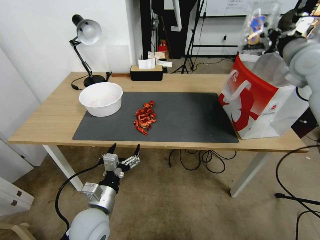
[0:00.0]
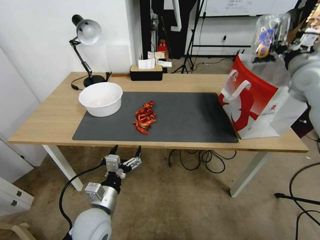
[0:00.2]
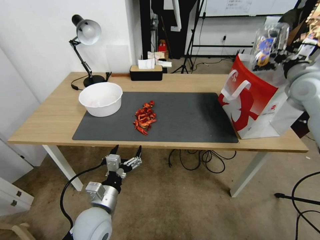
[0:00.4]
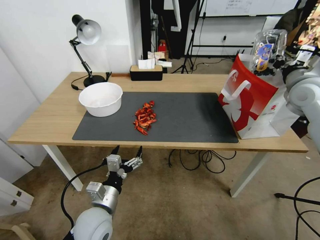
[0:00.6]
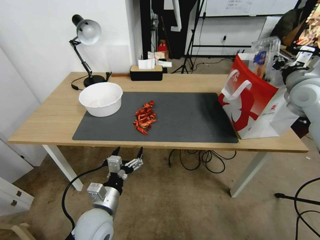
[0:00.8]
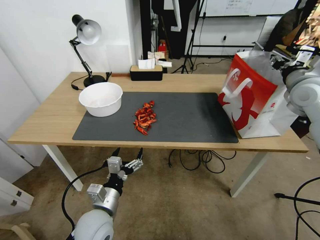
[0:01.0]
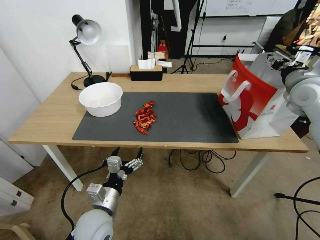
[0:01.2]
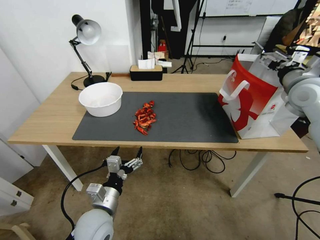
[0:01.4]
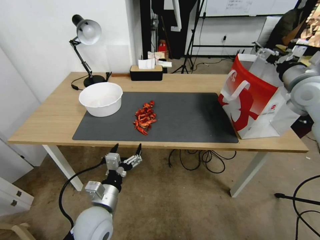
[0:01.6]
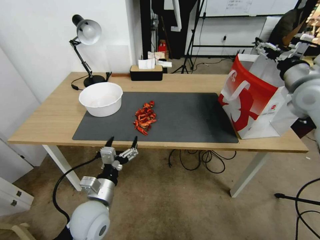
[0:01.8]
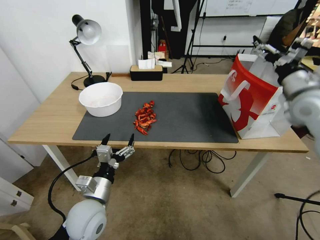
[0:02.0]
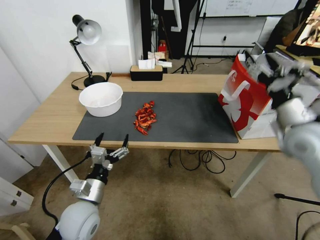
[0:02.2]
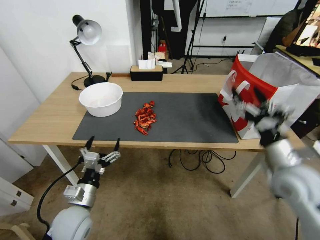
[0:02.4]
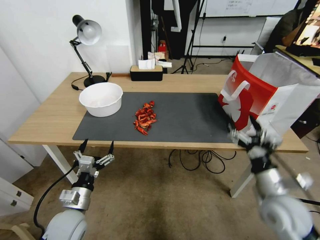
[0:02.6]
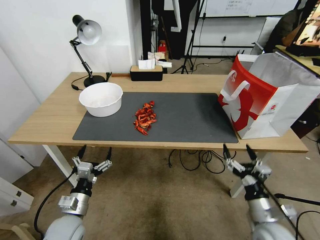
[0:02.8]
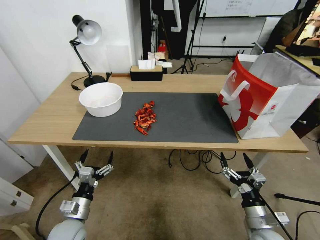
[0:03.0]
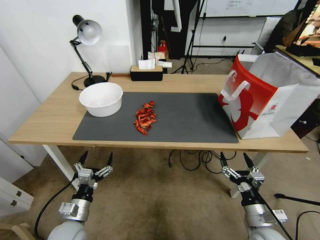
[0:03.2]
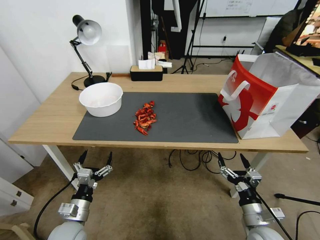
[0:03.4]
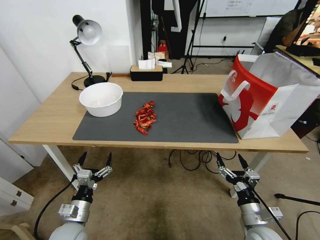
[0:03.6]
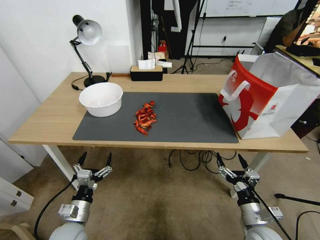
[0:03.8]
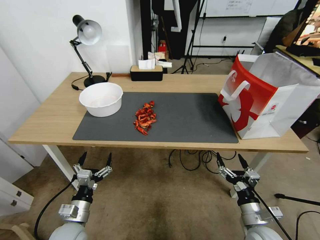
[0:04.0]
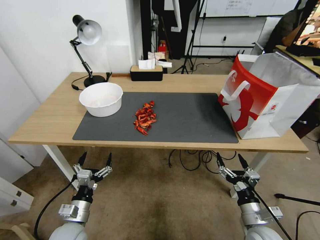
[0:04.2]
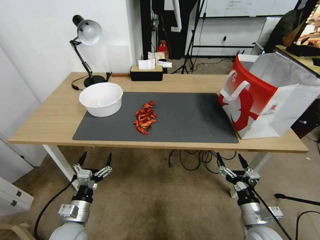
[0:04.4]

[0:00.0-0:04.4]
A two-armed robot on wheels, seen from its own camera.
0:00.0 to 0:01.4: The right gripper shifts roughly 5 cm downward, and opens up.
0:01.4 to 0:03.0: The left gripper heads to the left and downward, covering roughly 10 cm; the right gripper travels downward and backward by approximately 40 cm.
0:03.0 to 0:04.4: Both grippers stay put.

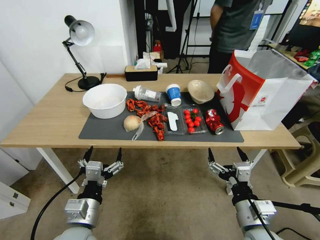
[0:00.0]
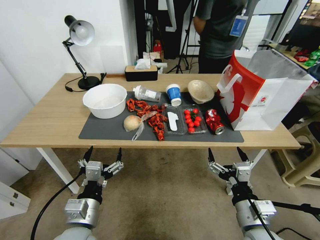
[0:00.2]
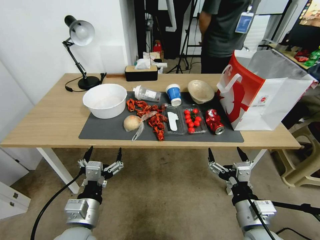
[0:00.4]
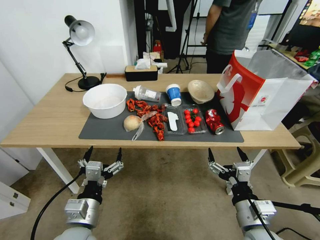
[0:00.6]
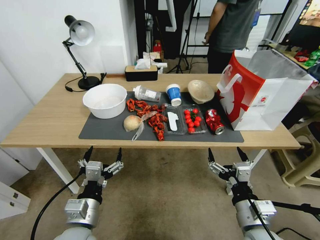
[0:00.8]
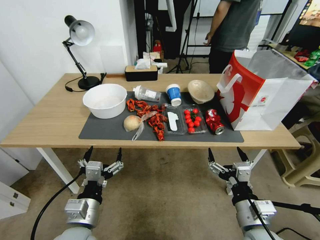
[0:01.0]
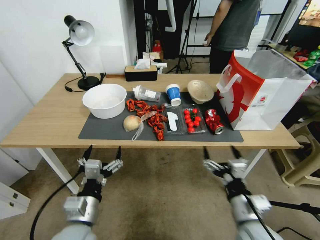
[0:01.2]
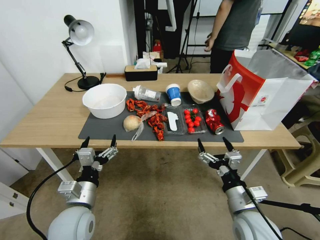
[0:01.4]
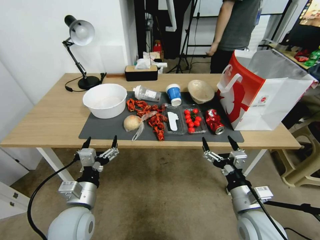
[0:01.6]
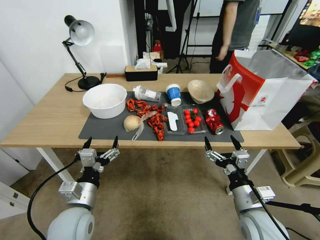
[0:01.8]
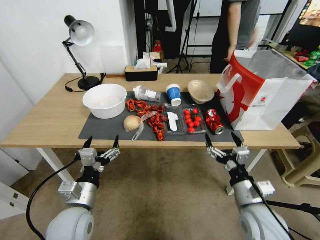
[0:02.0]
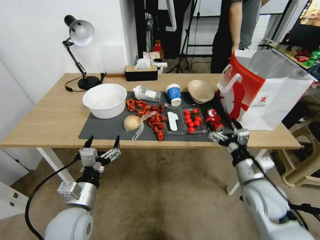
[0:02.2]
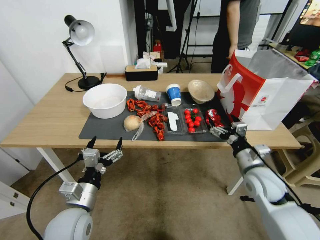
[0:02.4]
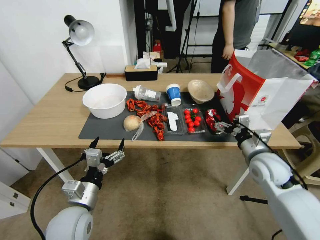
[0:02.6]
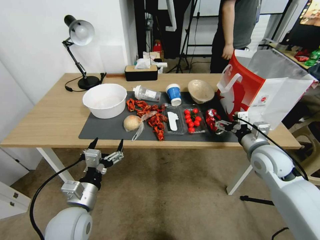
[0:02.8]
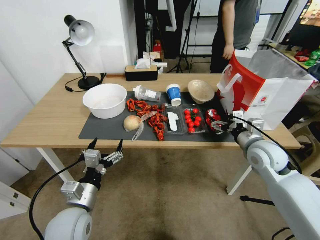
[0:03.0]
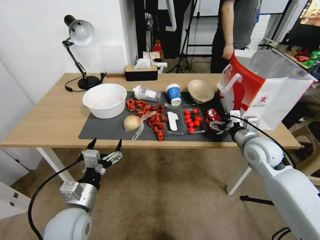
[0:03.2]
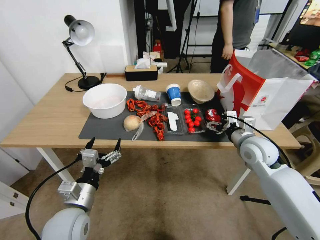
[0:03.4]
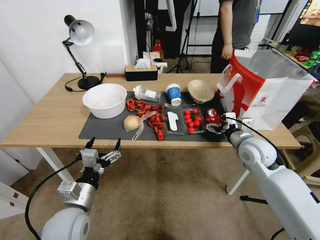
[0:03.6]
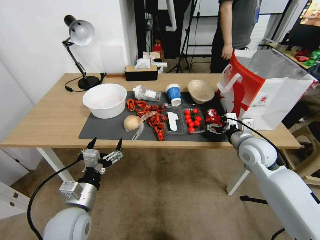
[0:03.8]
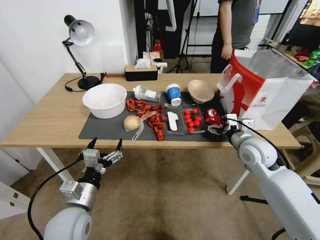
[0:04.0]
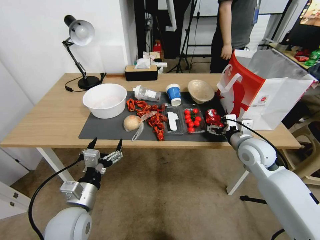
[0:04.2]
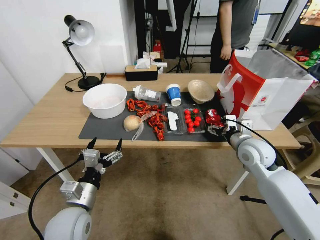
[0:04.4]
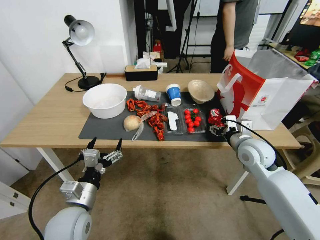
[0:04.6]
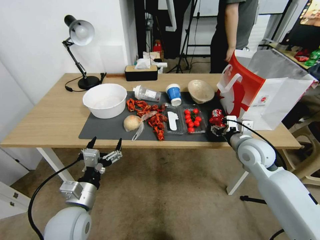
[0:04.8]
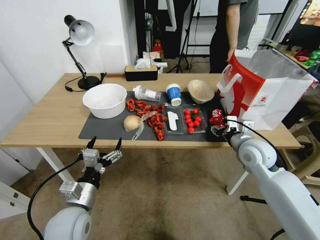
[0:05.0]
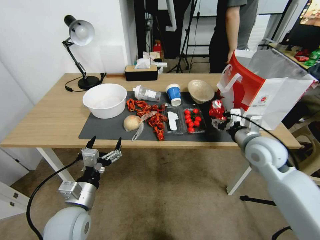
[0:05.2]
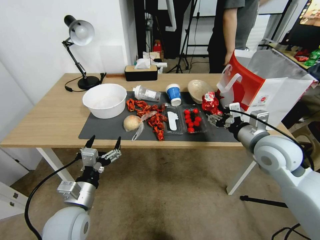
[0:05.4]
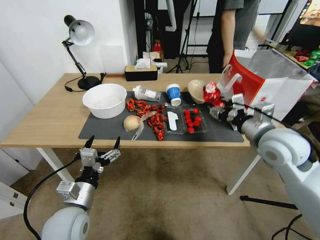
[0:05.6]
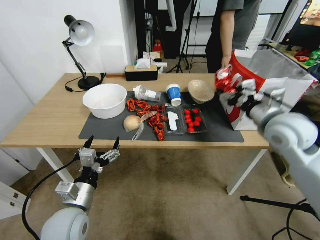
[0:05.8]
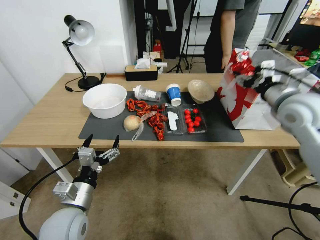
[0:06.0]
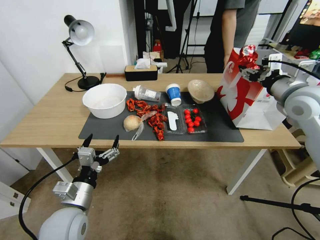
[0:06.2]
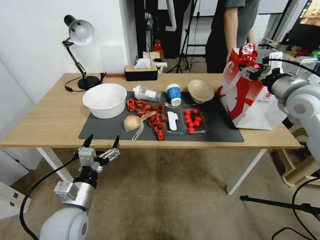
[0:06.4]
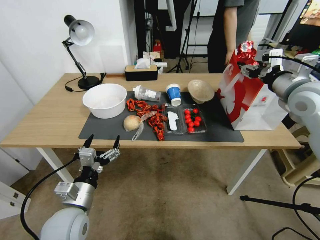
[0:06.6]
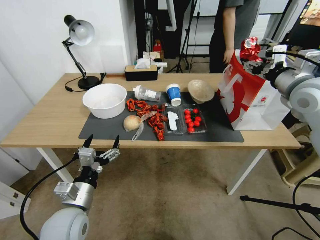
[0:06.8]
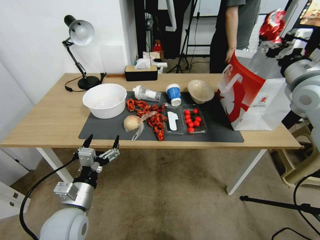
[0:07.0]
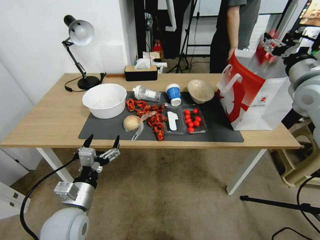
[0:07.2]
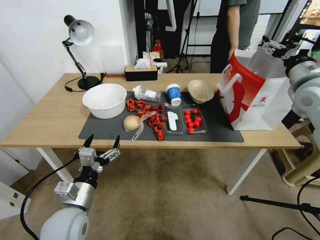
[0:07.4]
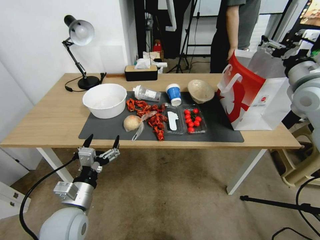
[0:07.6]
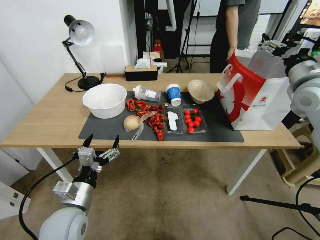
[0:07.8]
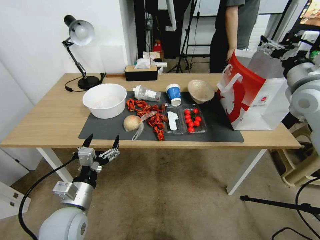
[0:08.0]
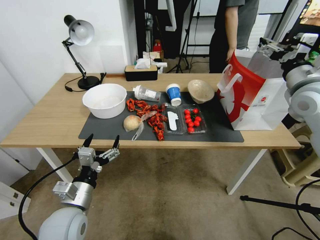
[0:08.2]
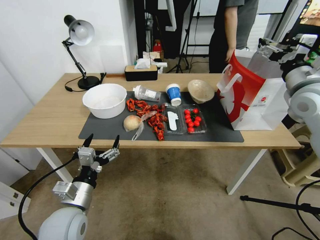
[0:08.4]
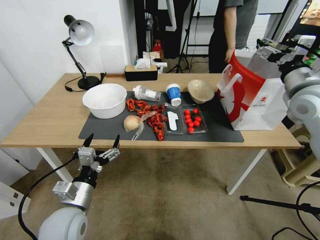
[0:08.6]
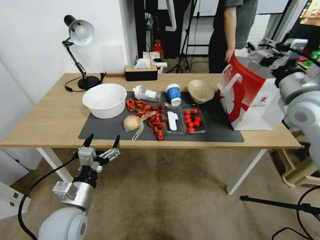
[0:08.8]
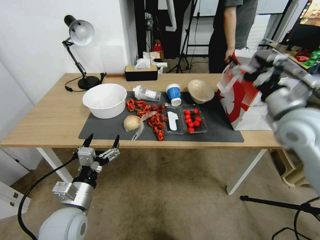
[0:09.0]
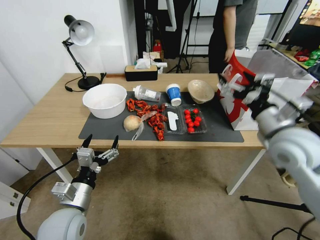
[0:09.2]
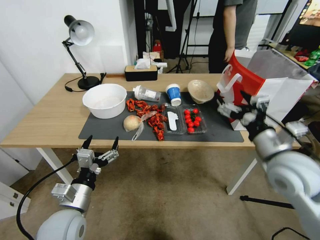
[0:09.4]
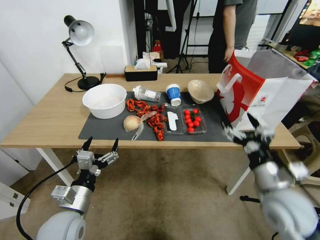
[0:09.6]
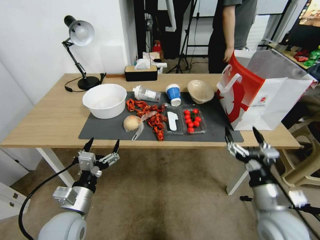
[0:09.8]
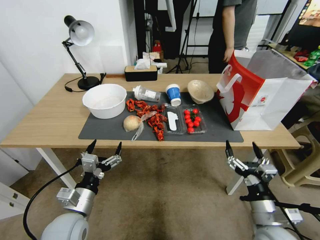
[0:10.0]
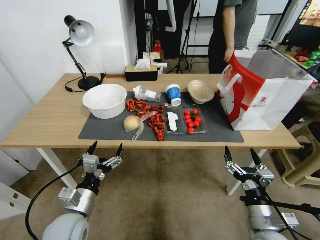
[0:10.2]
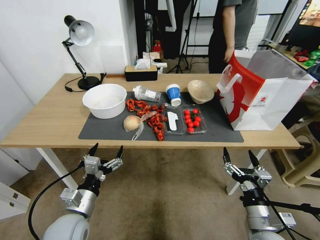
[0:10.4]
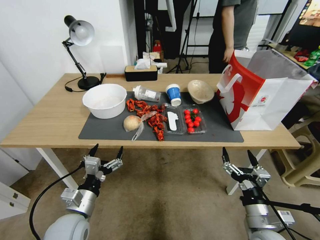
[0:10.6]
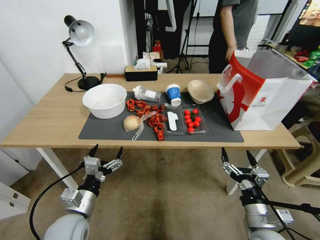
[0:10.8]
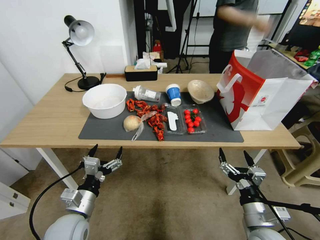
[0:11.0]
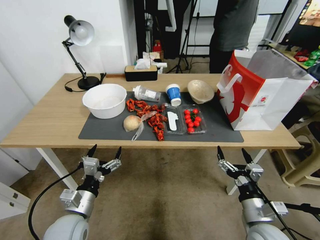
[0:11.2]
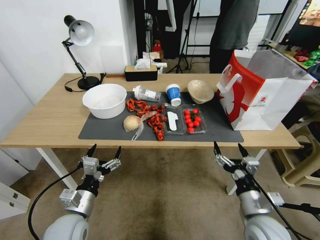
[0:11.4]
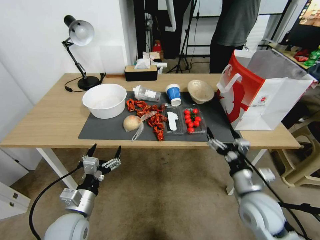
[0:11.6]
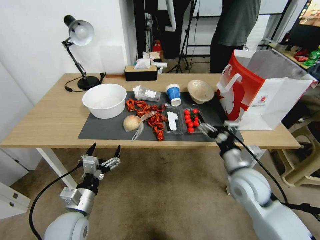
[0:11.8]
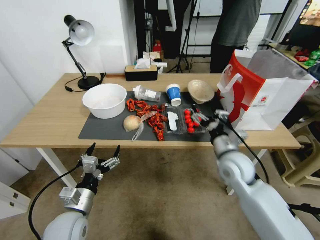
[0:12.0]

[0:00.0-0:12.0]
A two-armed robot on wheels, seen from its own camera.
0:01.6 to 0:03.0: The right gripper travels forward, upward and to the right by some 20 cm.
0:03.0 to 0:04.4: The grippers stay close to where they were, moving slightly.
0:04.4 to 0:06.0: The right gripper moves upward, some 15 cm, and closes.
0:06.0 to 0:07.6: The right gripper shifts by about 5 cm, and opens its fingers.
0:07.6 to 0:09.0: The right gripper heads backward, covering roughly 5 cm.
0:09.0 to 0:10.4: The right gripper heads downward and backward, covering roughly 35 cm.
0:10.4 to 0:12.0: The right gripper moves forward and upward, roughly 20 cm.

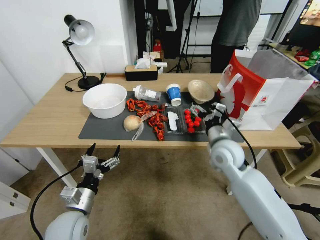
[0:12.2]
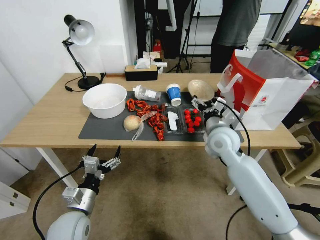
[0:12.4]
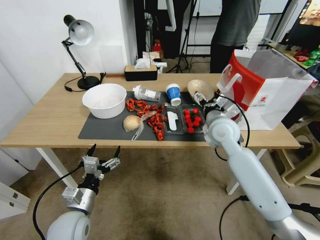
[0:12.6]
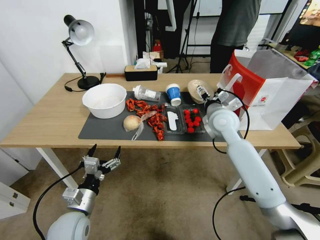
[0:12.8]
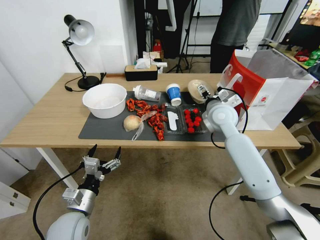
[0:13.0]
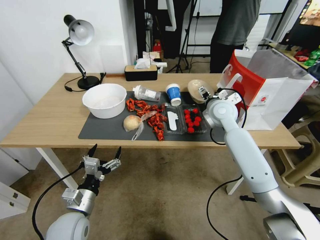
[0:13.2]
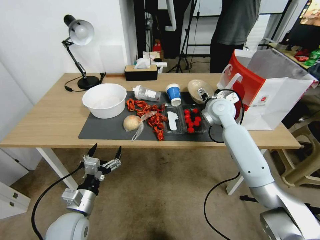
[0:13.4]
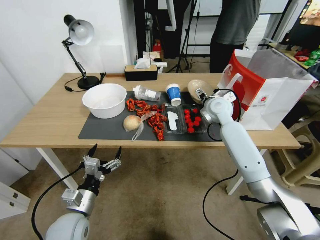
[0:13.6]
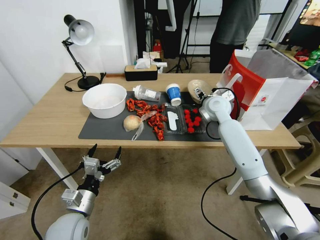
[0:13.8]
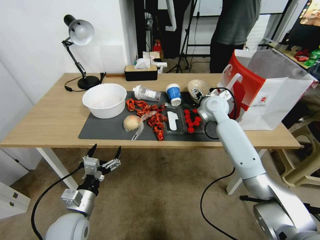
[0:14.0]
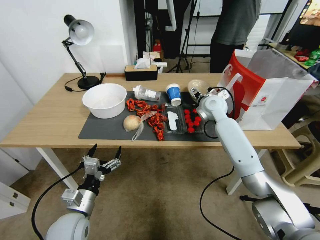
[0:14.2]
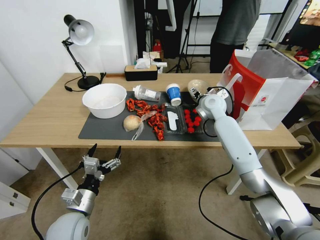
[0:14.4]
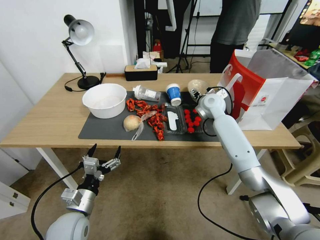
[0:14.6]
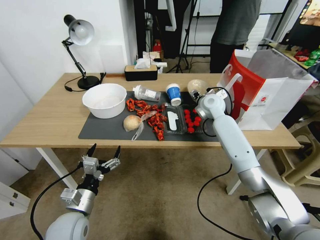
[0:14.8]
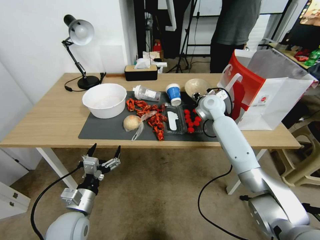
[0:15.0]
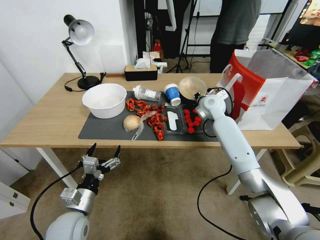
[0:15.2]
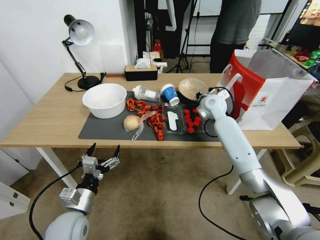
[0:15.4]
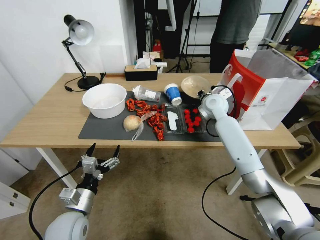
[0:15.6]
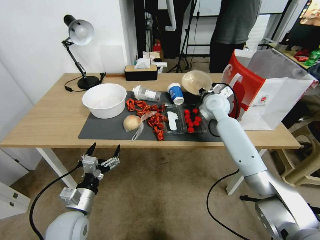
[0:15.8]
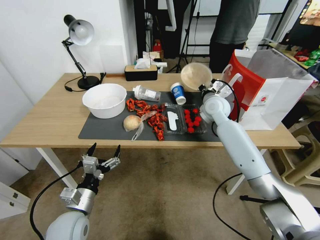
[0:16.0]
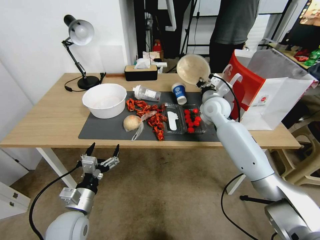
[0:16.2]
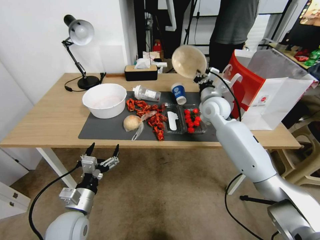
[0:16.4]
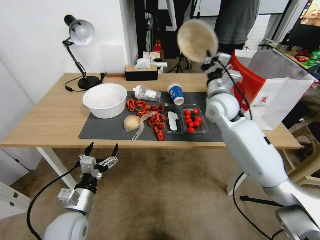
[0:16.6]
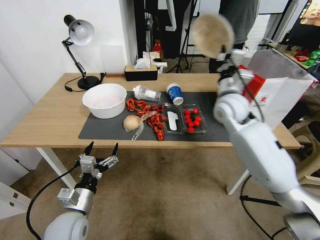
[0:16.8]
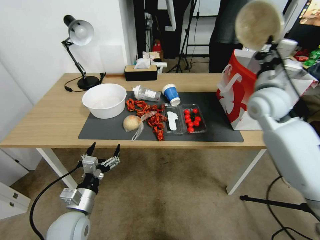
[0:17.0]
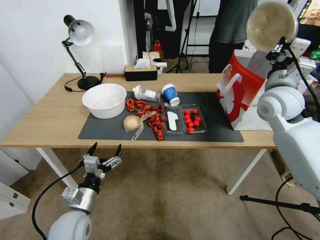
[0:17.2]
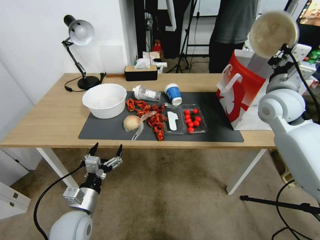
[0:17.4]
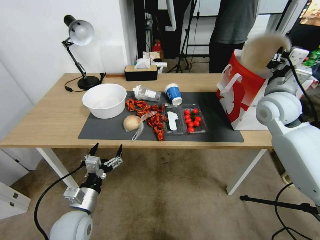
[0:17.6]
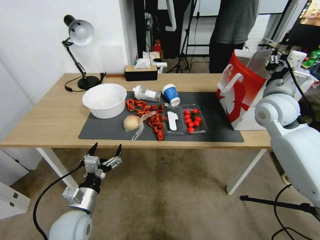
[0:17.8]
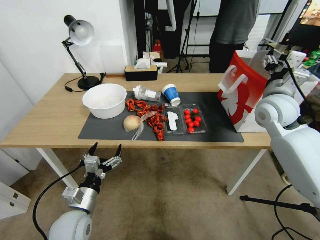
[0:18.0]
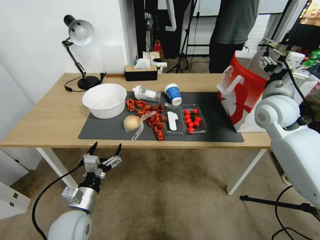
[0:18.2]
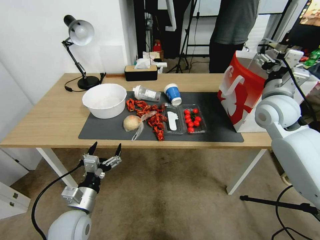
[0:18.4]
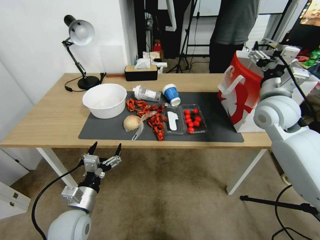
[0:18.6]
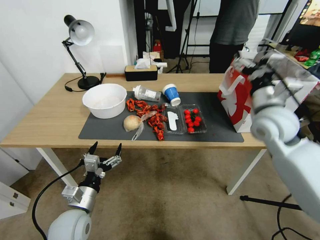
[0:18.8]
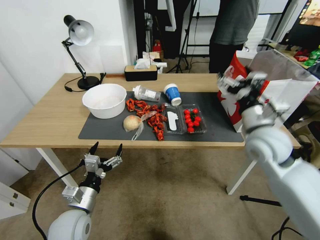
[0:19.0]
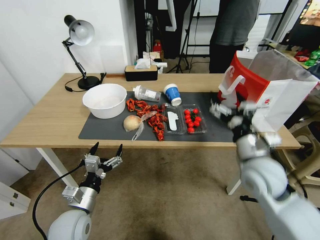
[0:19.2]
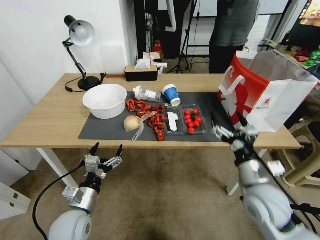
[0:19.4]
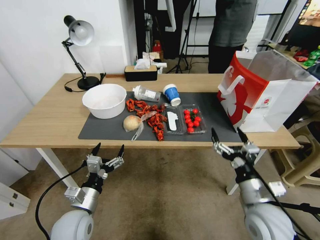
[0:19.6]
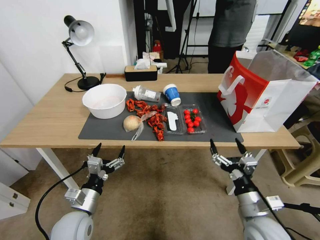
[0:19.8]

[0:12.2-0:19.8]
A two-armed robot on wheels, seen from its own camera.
0:12.2 to 0:13.8: The right gripper heads forward, covering about 15 cm.
0:13.8 to 0:15.2: The right gripper closes.
0:15.2 to 0:16.8: The right gripper moves backward and upward, about 10 cm.
0:16.8 to 0:18.2: The right gripper moves to the right, roughly 10 cm, and opens its fingers.
0:18.2 to 0:19.8: The right gripper goes about 35 cm backward and downward.
